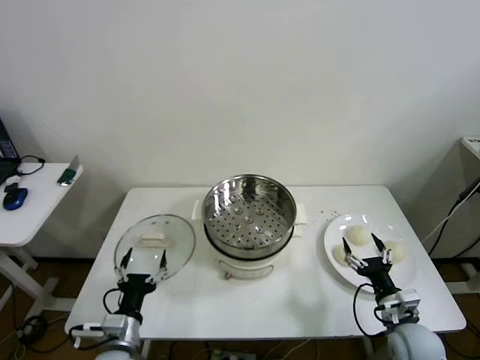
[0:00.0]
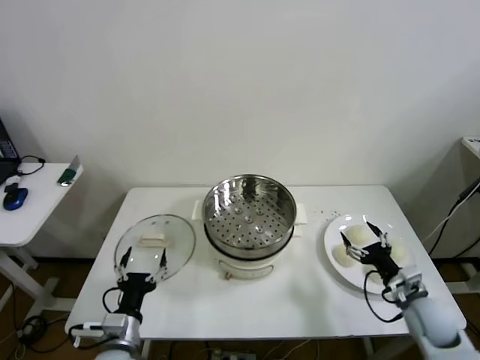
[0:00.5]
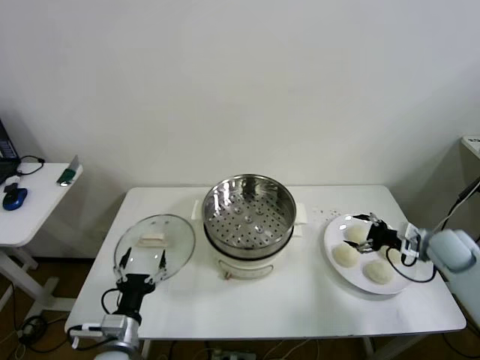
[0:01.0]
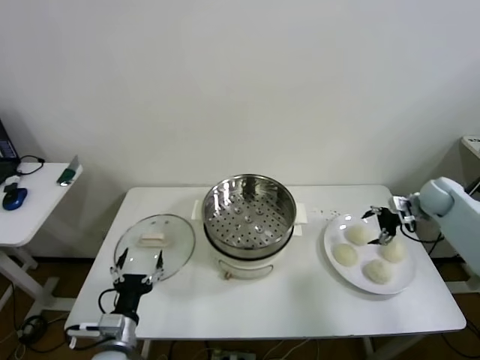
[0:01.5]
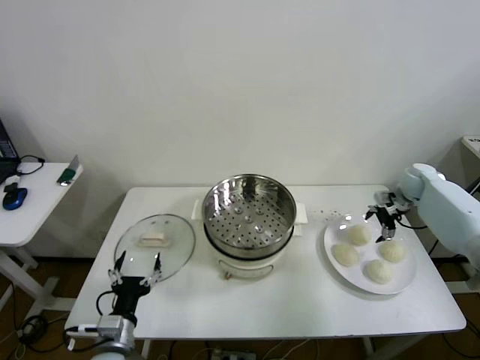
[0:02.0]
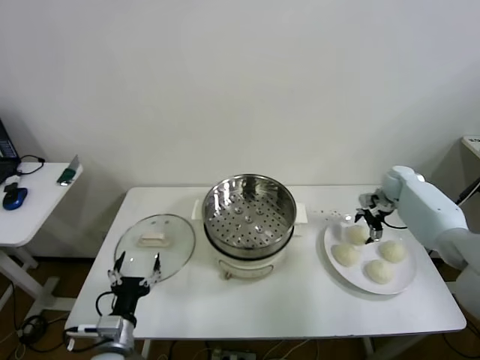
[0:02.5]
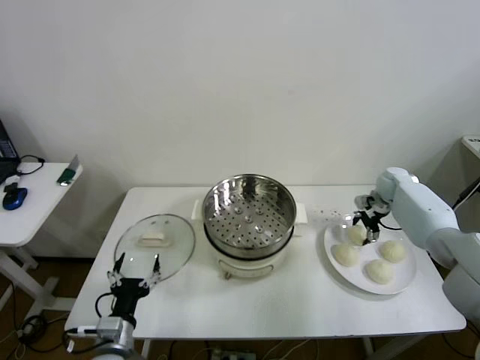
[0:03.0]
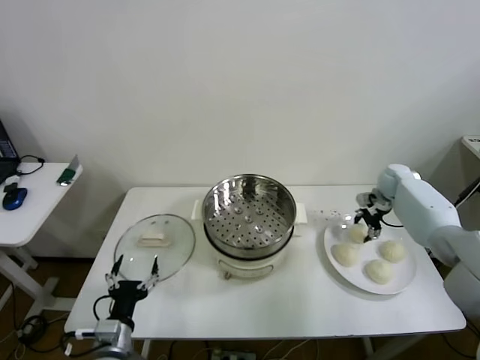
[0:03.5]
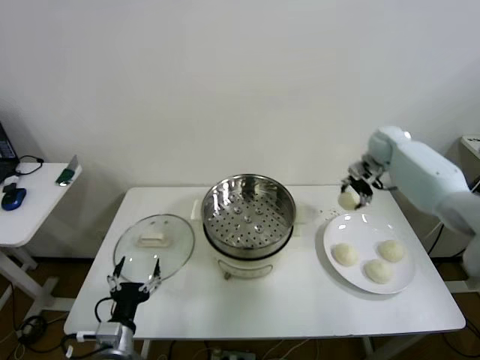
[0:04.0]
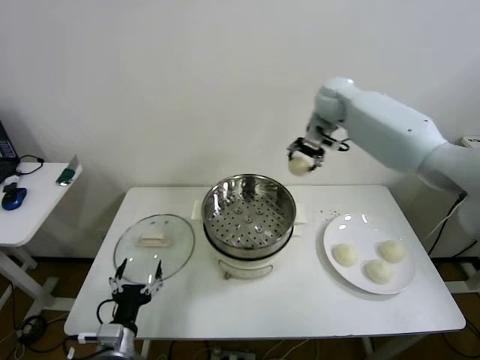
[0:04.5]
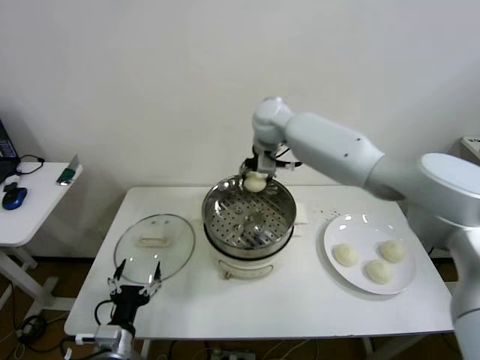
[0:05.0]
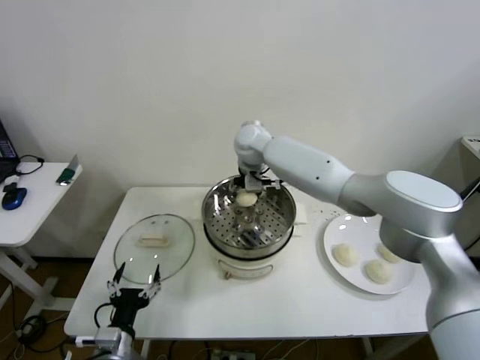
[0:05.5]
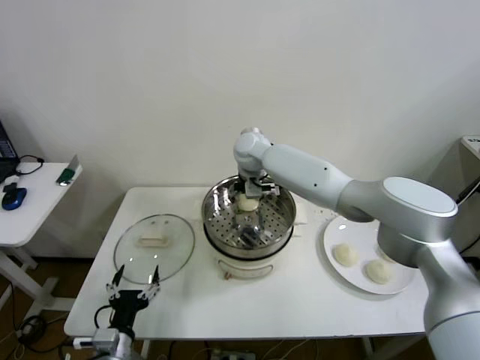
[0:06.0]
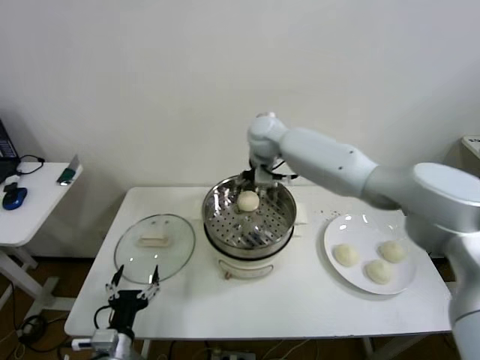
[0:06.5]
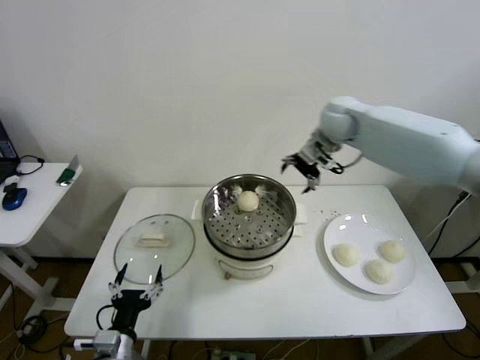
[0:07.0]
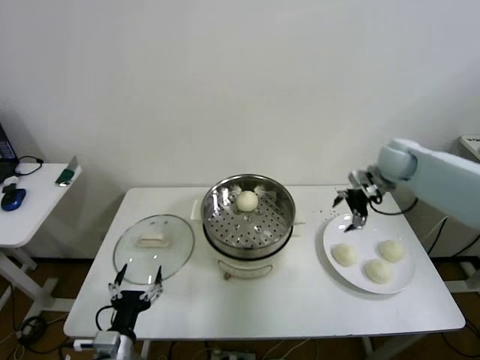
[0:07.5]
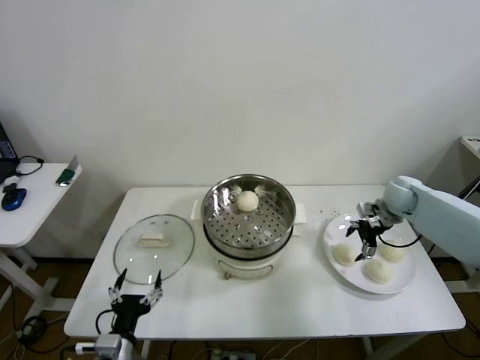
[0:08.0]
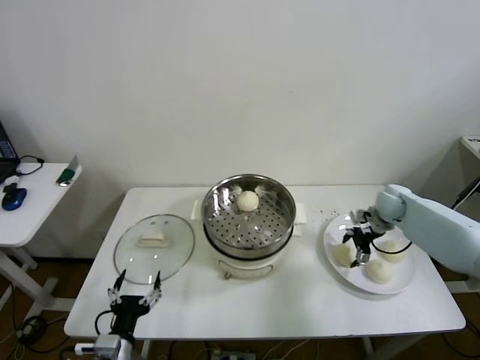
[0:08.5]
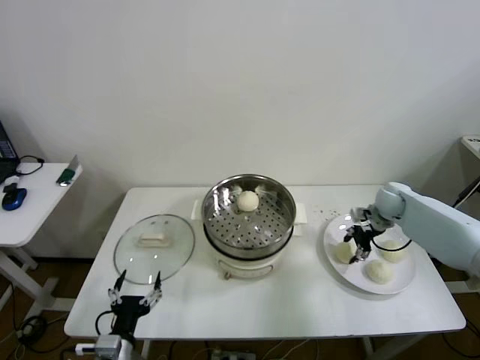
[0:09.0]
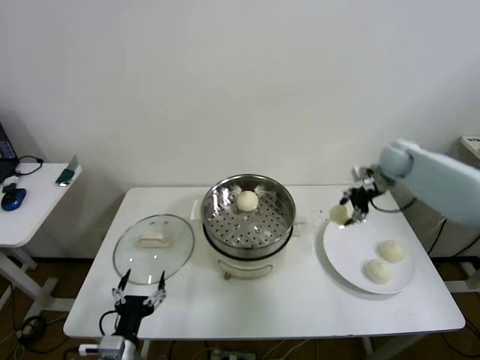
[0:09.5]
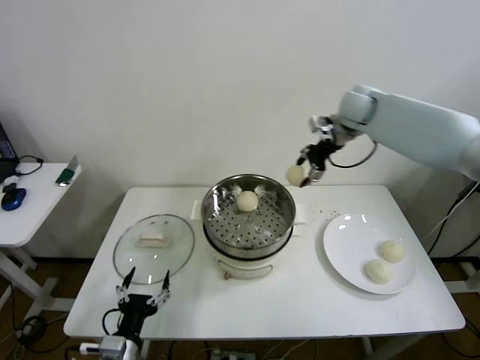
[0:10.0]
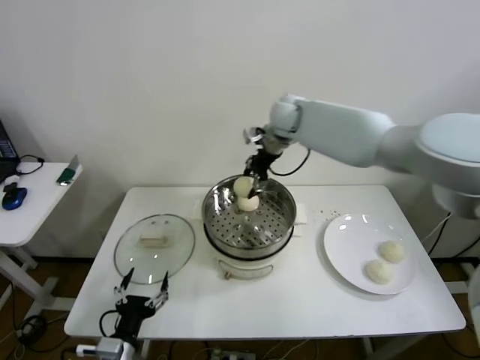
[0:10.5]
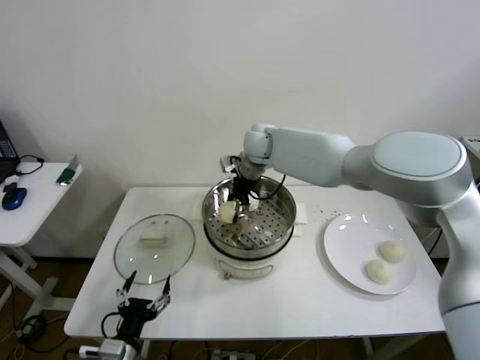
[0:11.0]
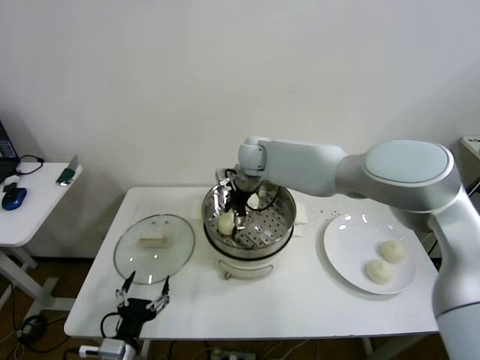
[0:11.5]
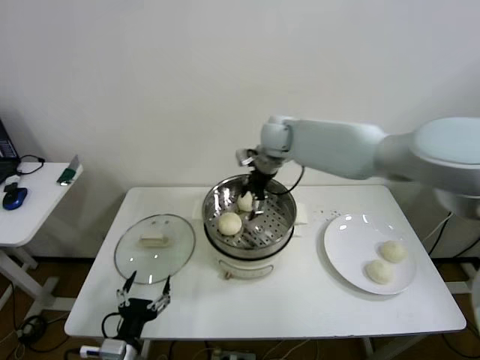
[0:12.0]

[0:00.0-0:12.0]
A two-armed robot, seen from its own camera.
Step, 0.0 to 3.0 s: Grasp the baozi in the plate with right gripper.
Step, 3.5 to 6.0 s: Place the baozi on the steamer with right gripper.
Step, 7.0 to 9.0 s: Grasp the baozi in the plate with right gripper.
Step, 9.5 to 11.5 s: Place the baozi on the steamer with right gripper.
2.0 to 4.0 s: The right gripper shifts about 20 cm upward, to the left and forward, and closes its fingers.
4.0 to 6.0 s: The right gripper shifts roughly 35 cm to the left, and opens its fingers.
6.0 to 8.0 s: The right gripper heads to the right, covering approximately 40 cm.
8.0 to 10.0 s: The right gripper shifts some 30 cm upward and to the left, and closes up.
10.0 to 12.0 s: The right gripper shifts approximately 15 cm to the left and downward, and opens up.

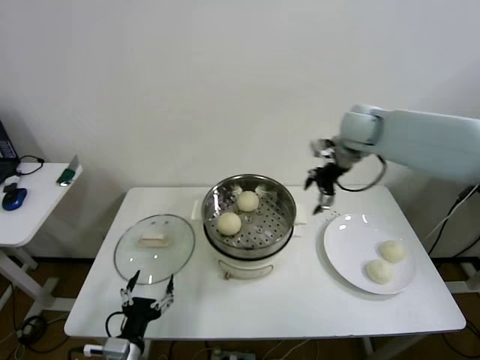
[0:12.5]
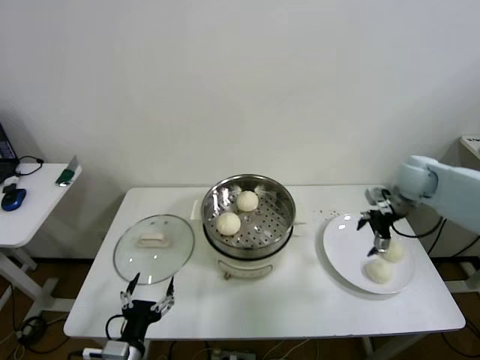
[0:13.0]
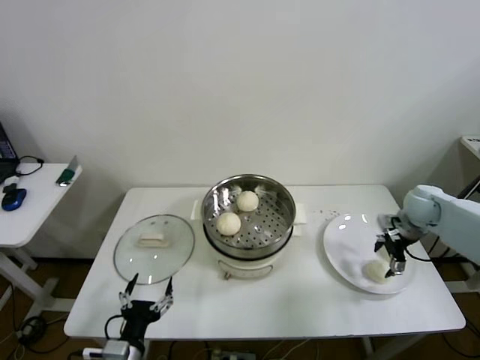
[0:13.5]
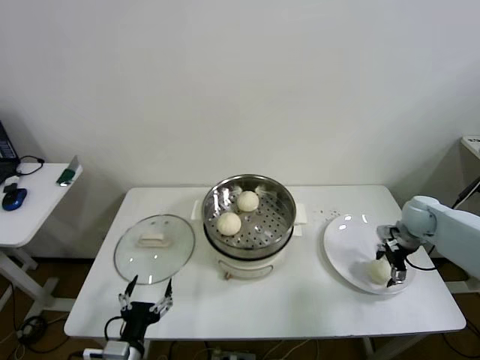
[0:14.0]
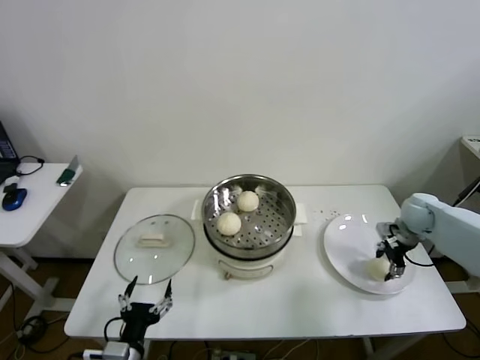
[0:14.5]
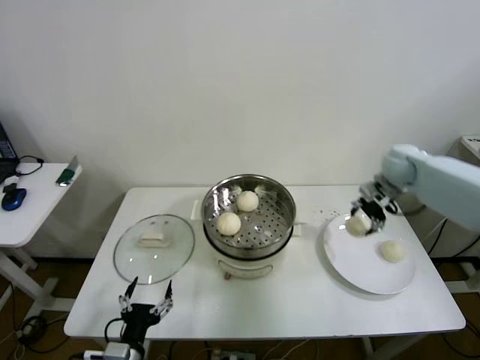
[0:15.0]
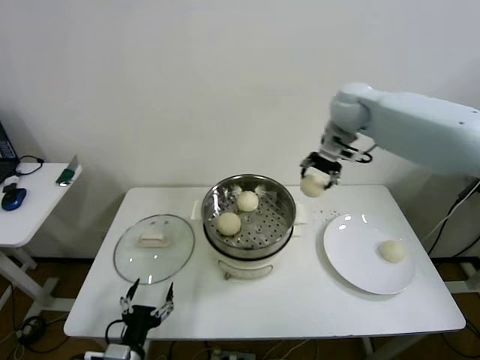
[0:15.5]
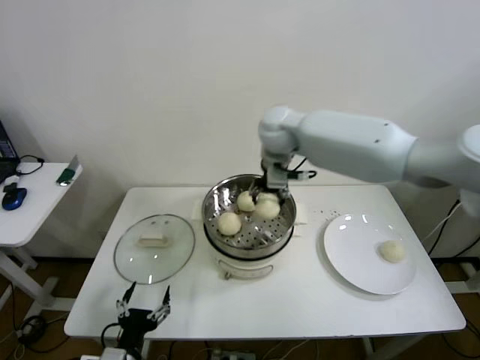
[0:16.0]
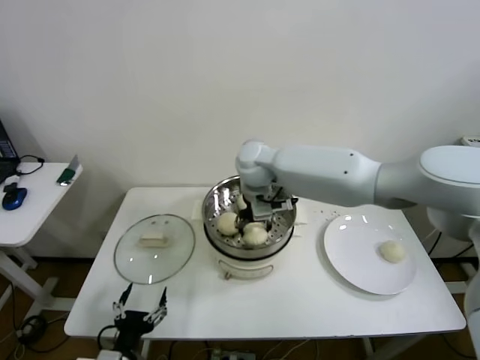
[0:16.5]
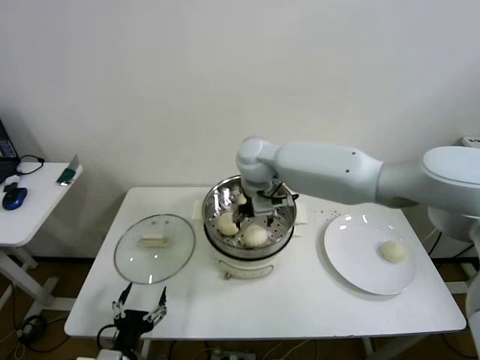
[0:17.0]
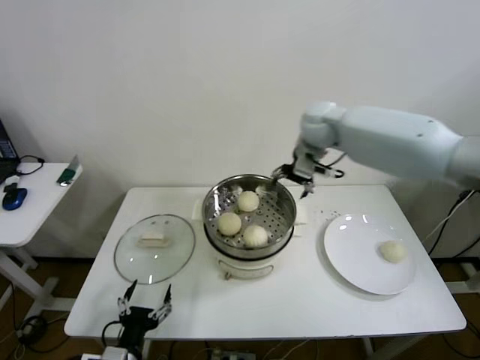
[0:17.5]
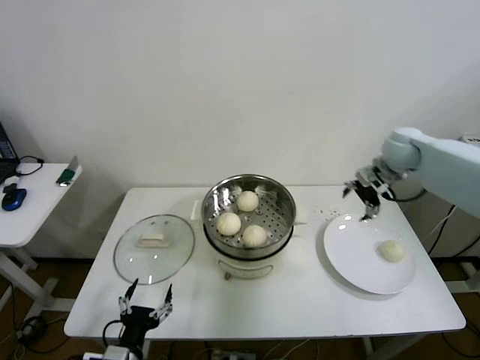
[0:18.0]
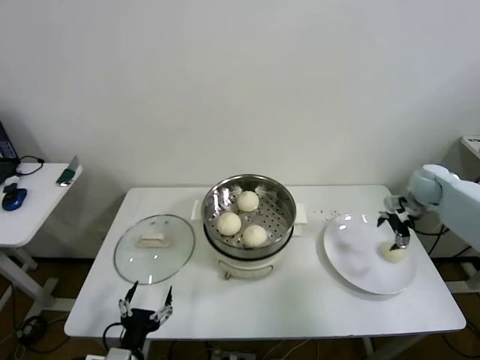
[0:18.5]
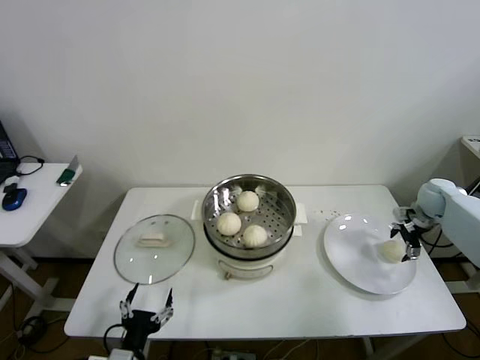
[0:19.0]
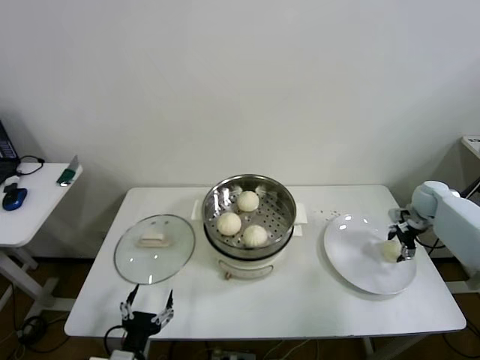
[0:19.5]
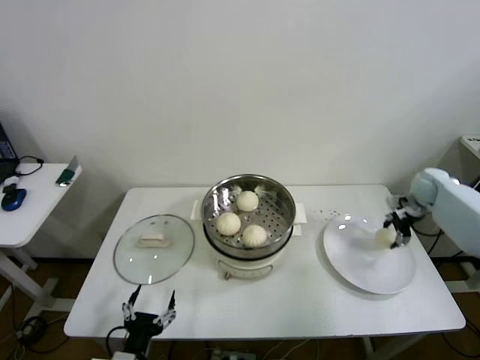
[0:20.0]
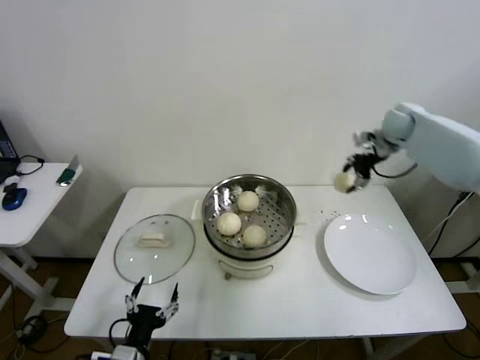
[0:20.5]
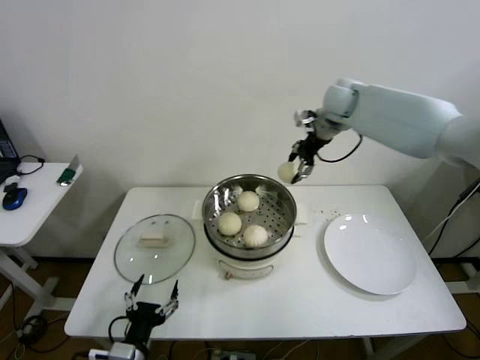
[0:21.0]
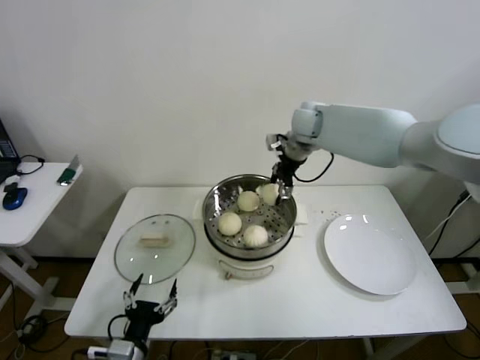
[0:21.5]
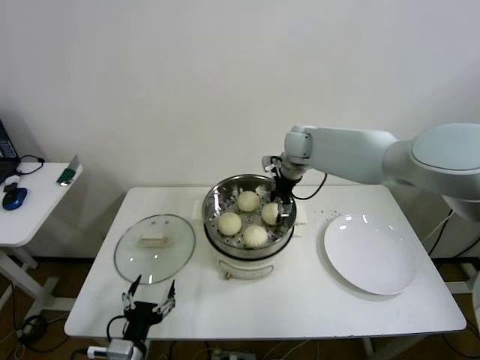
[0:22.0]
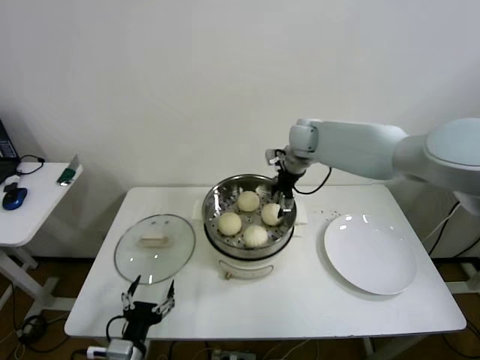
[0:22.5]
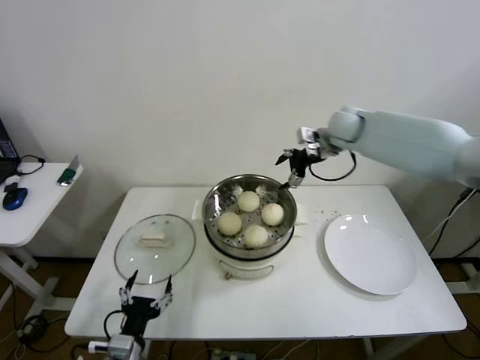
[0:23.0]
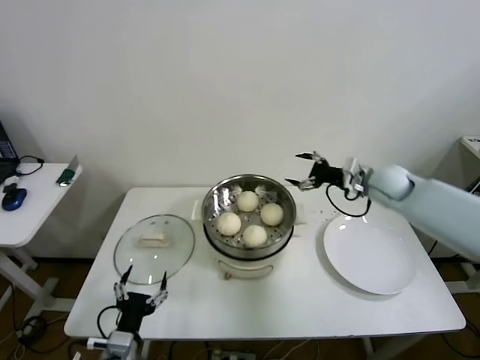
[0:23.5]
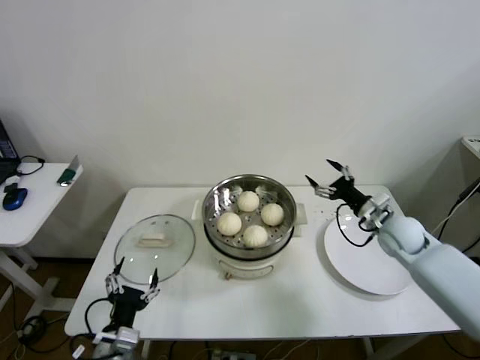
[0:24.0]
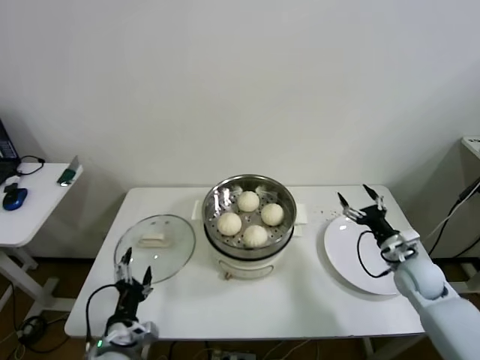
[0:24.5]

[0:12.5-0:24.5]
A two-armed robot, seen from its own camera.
Step, 12.5 to 14.5 s: Grasp the baozi in the plate with right gripper.
Step, 15.0 to 17.0 s: Place the baozi on the steamer with right gripper.
Step, 17.5 to 19.5 s: Grasp the baozi in the plate with right gripper.
Step, 20.0 to 22.5 s: Place the baozi on the steamer with right gripper.
12.5 to 14.5 s: The right gripper shifts approximately 25 cm downward and to the right, and closes its fingers.
14.5 to 16.5 s: The right gripper is displaced to the left by about 40 cm.
16.5 to 18.5 s: The right gripper travels to the right by approximately 50 cm, and opens up.
18.5 to 20.5 s: The right gripper is displaced upward, to the left and forward by roughly 20 cm, and closes its fingers.
20.5 to 22.5 s: The right gripper travels to the left by some 20 cm, and opens up.
22.5 to 24.5 s: The right gripper moves backward, to the right and downward, some 40 cm.

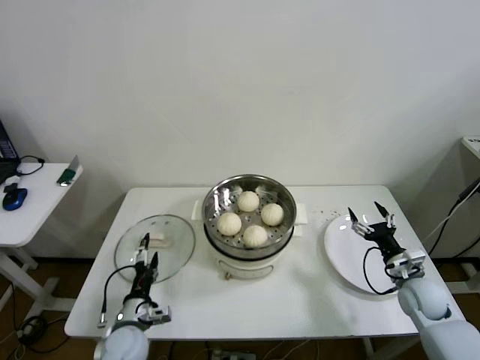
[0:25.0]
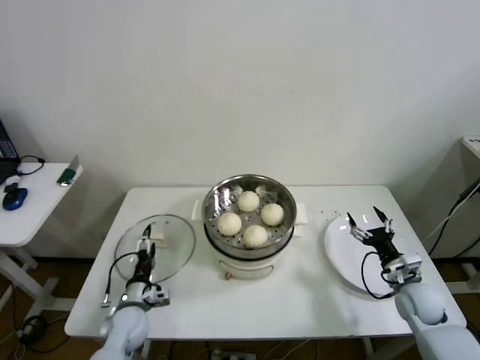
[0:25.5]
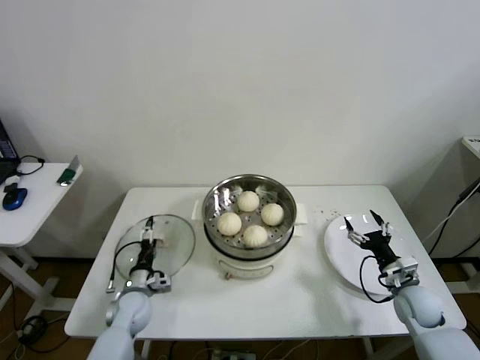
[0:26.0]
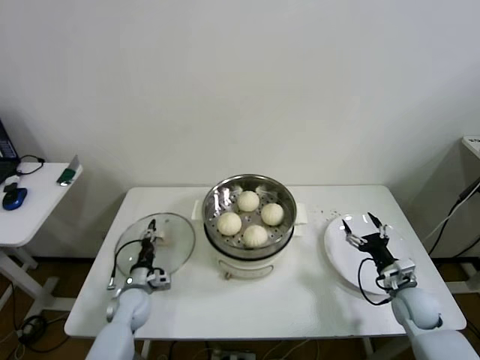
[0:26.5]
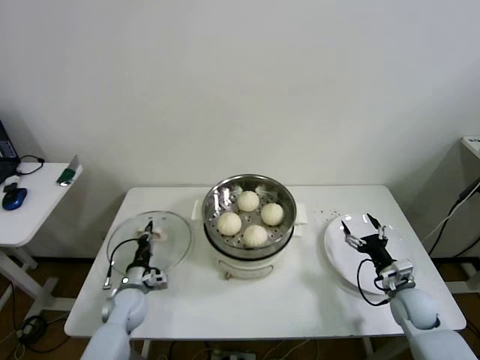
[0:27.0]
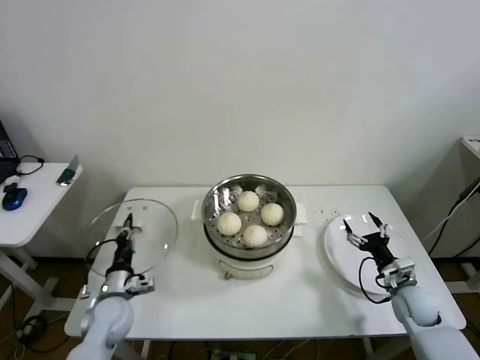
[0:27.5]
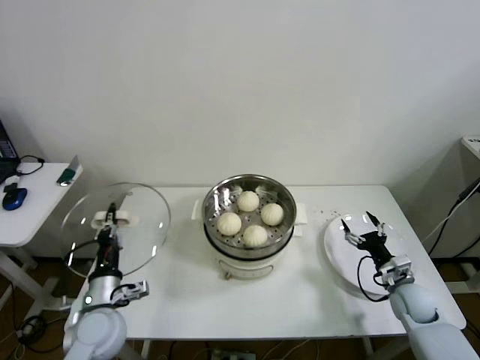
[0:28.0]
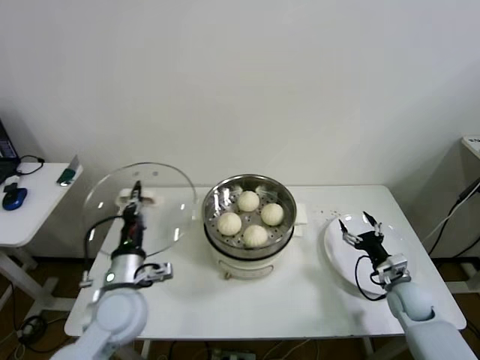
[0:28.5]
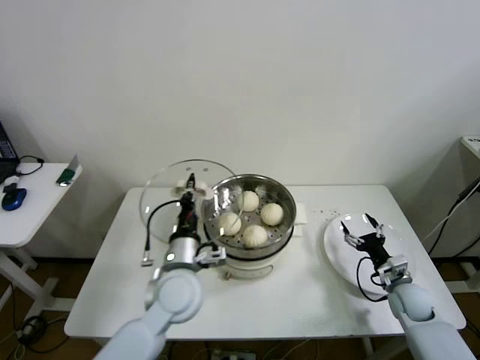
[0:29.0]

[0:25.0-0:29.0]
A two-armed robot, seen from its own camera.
25.0 to 27.0 s: The left gripper goes some 10 cm forward, and closes its fingers.
27.0 to 29.0 s: The left gripper shifts about 25 cm upward and to the right.
